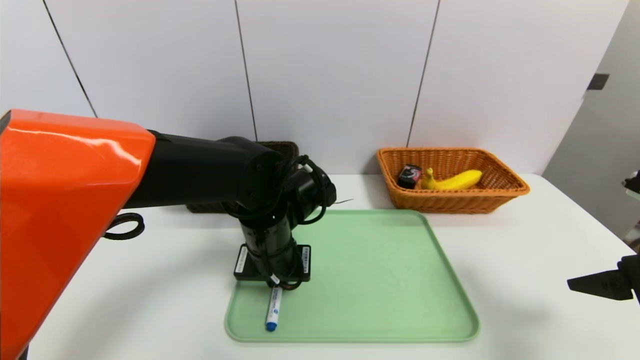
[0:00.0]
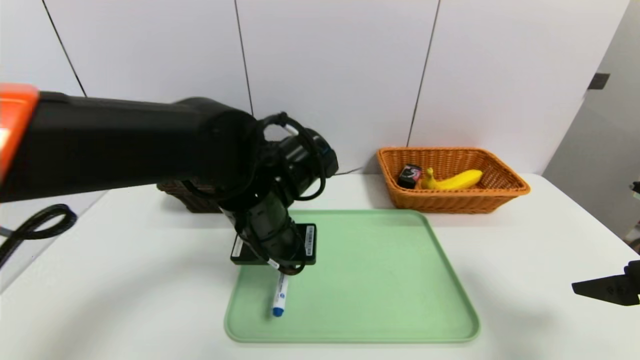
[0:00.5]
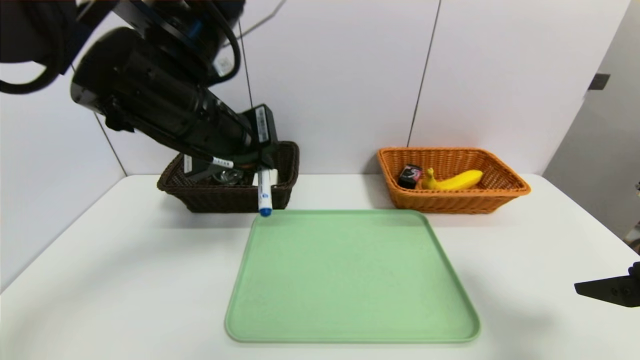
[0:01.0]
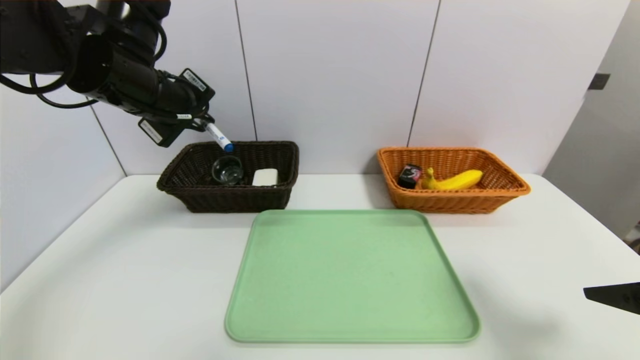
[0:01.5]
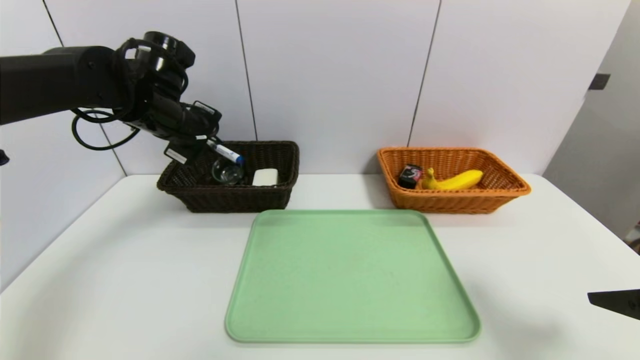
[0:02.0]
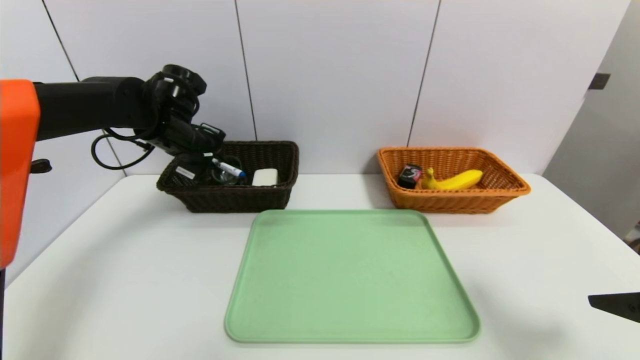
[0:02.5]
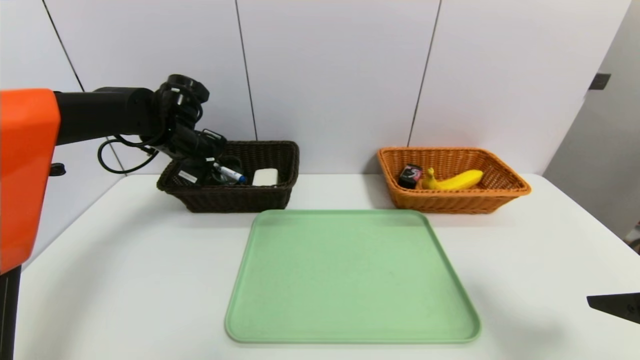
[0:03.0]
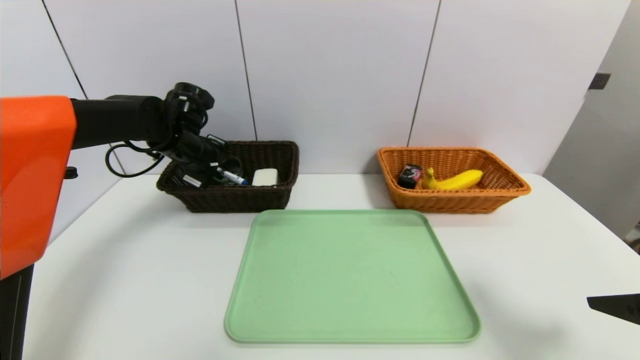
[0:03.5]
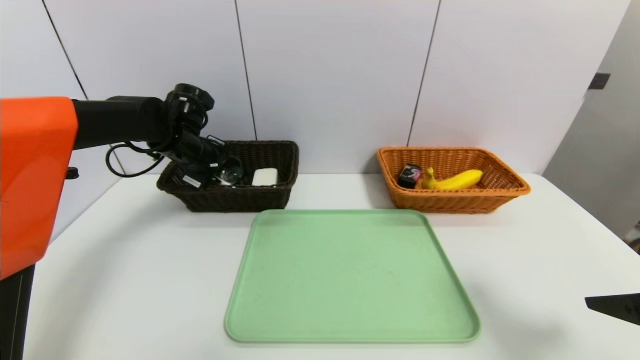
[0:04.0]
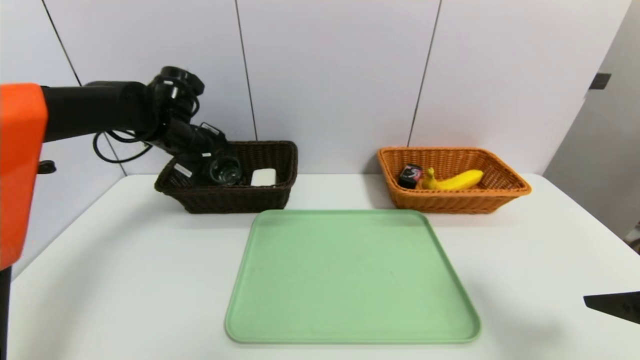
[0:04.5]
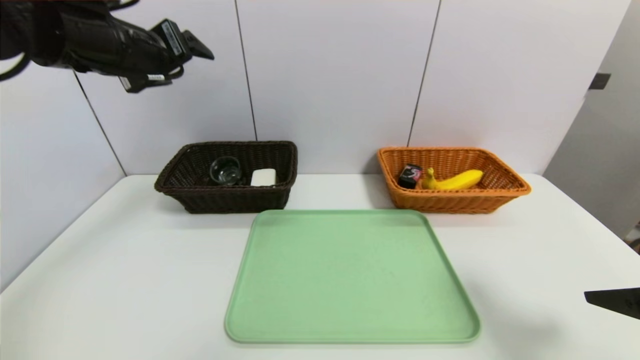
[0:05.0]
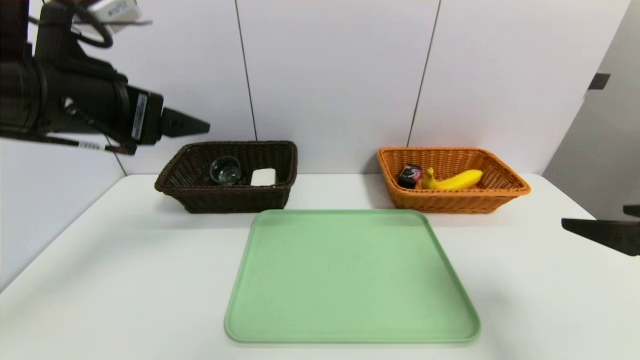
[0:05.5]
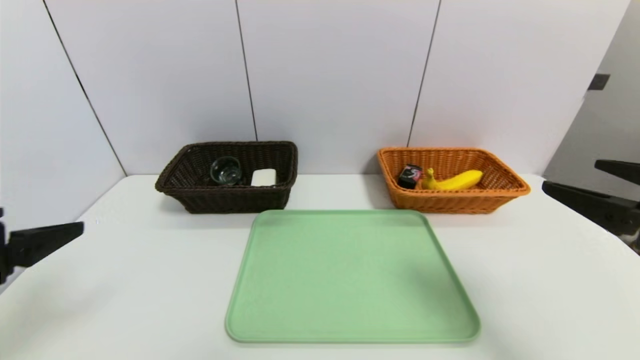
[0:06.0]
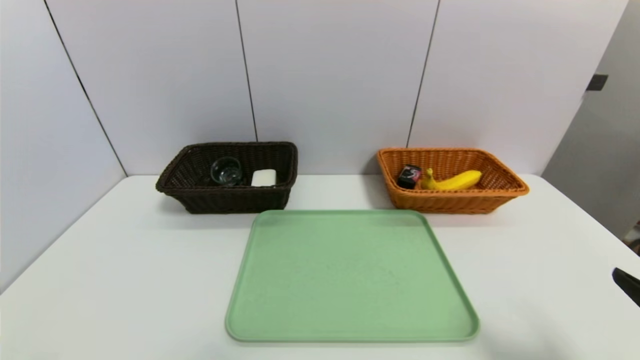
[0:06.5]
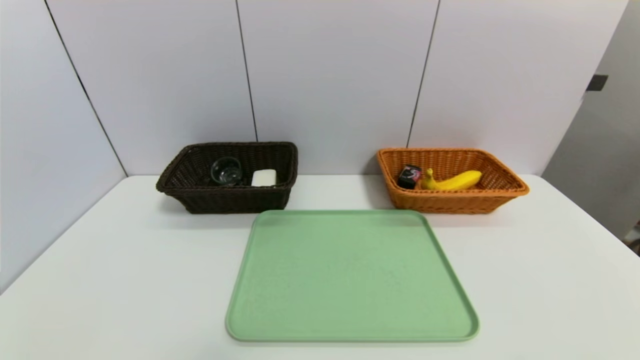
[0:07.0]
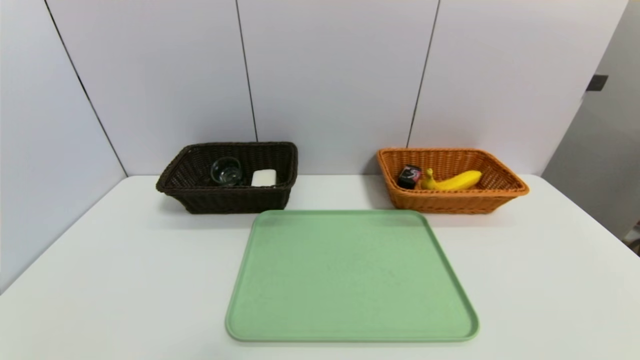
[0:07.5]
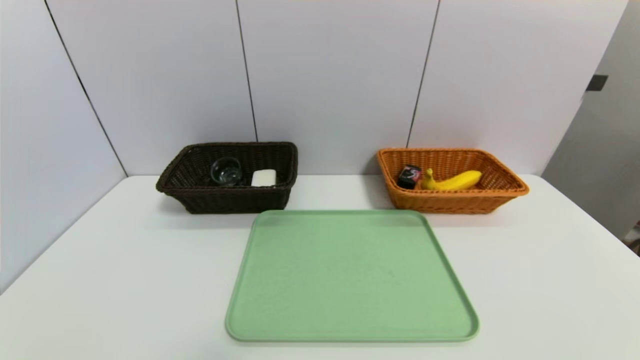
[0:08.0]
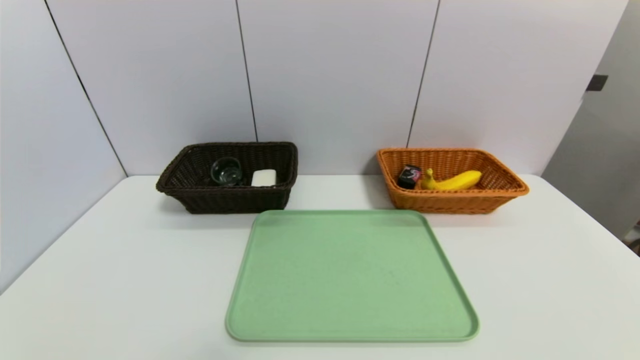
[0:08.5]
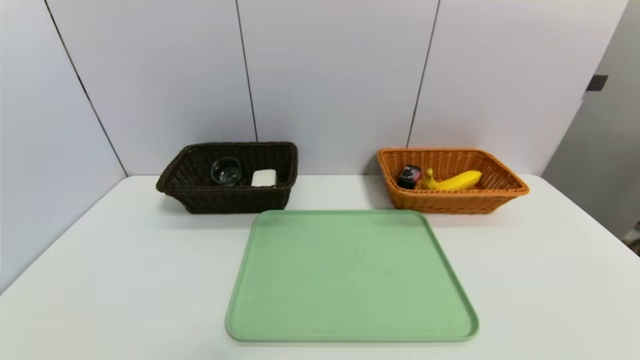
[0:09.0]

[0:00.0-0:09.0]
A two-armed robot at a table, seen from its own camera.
Task of the whole recording: place the food in the right basket with the right gripper, and place the non food items in the left basket with the left gripper.
Step, 0:00.0 to 0:04.0: Grasp the blue marker and put it in the left basket.
0:00.0 to 0:02.0: The left gripper is displaced to the left, upward and forward by roughly 25 cm.
0:02.0 to 0:04.5: The left gripper opens up.
0:04.5 to 0:07.0: The left gripper travels backward by roughly 50 cm. The right gripper shifts roughly 15 cm backward and downward.

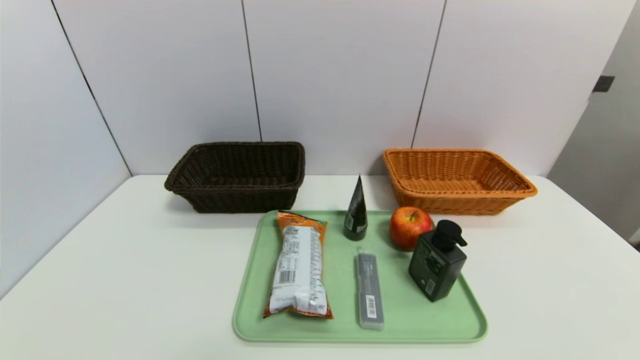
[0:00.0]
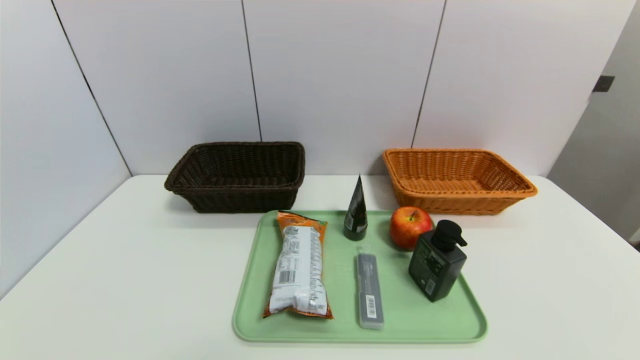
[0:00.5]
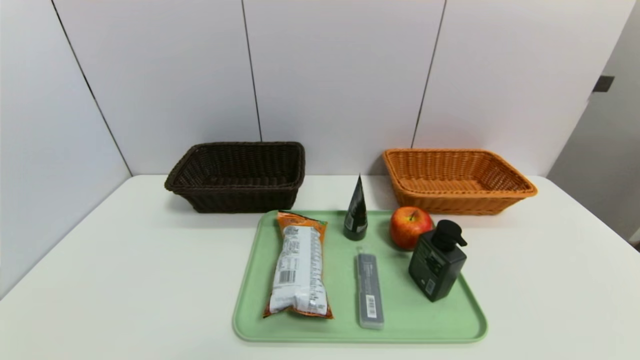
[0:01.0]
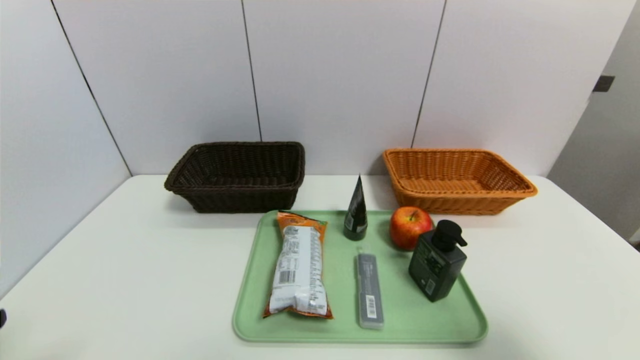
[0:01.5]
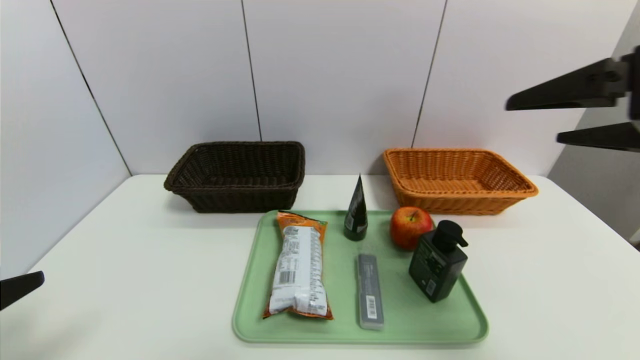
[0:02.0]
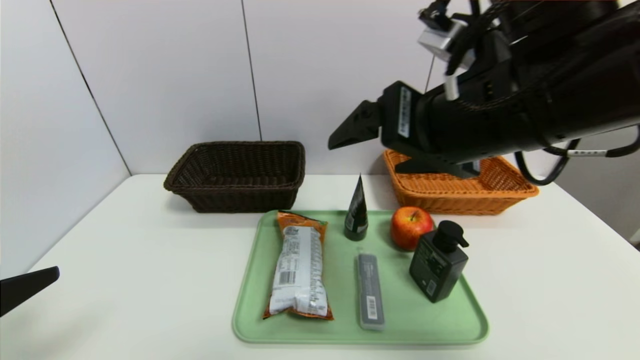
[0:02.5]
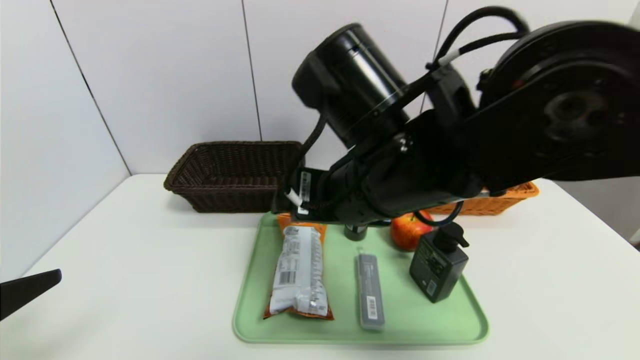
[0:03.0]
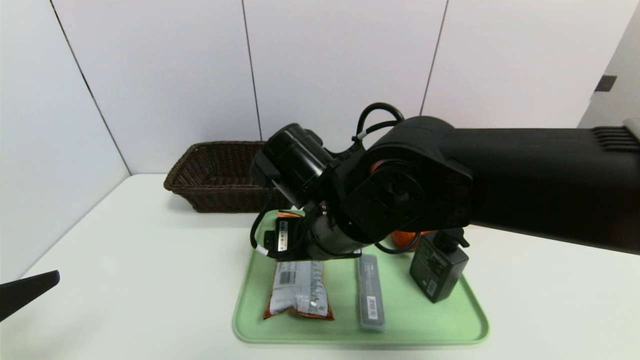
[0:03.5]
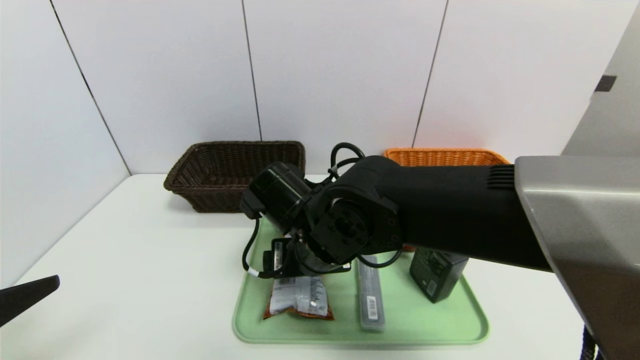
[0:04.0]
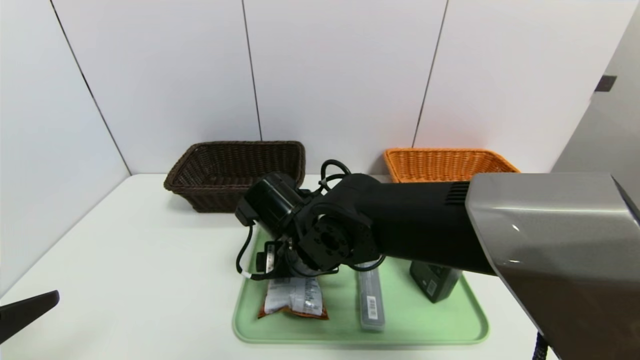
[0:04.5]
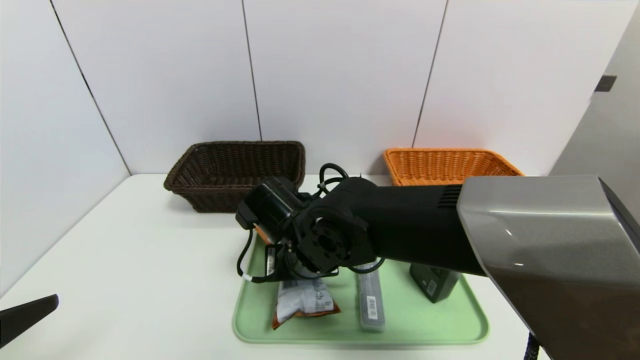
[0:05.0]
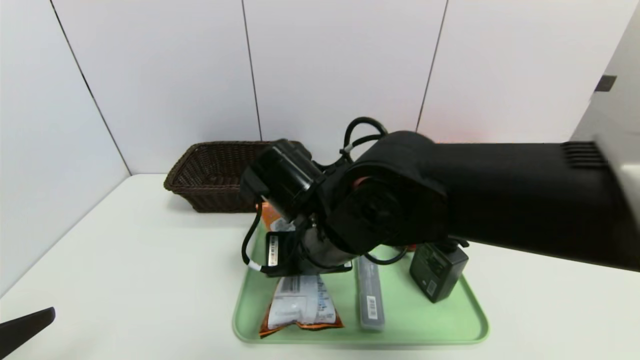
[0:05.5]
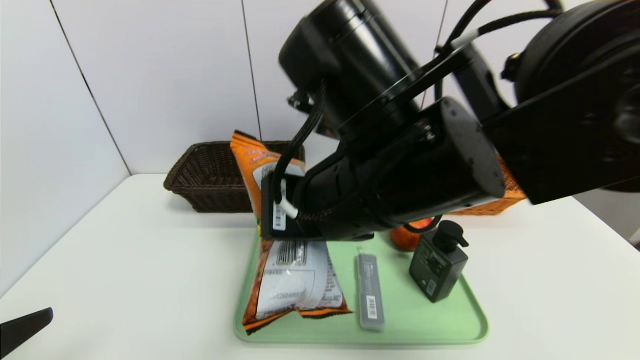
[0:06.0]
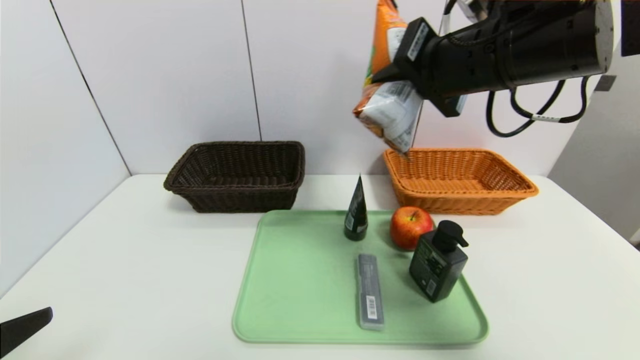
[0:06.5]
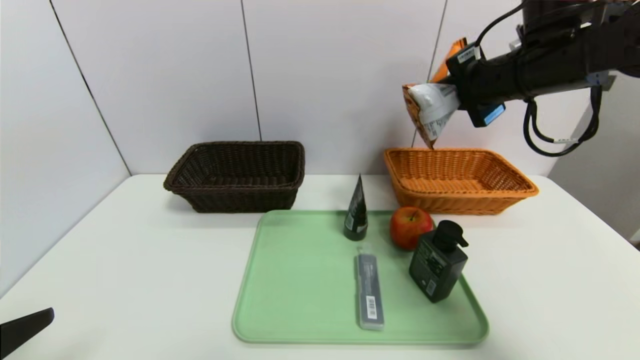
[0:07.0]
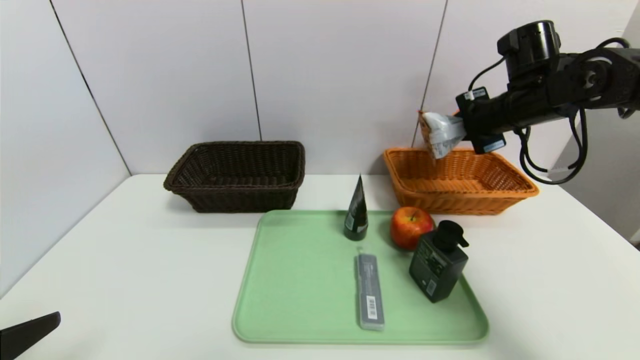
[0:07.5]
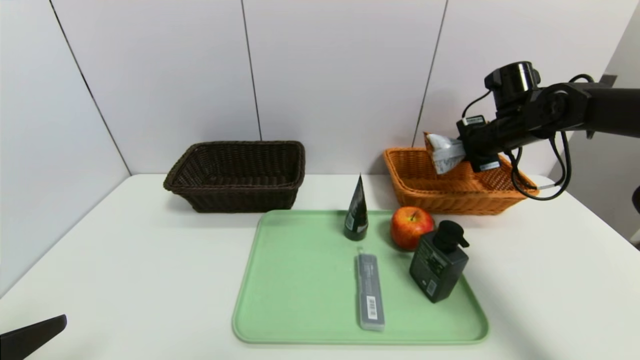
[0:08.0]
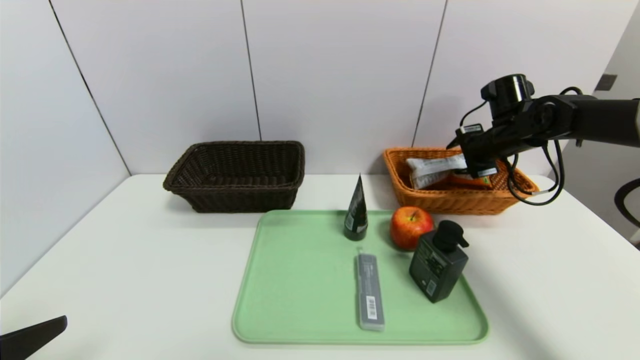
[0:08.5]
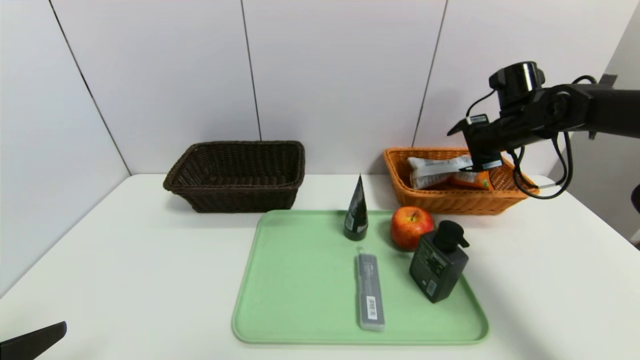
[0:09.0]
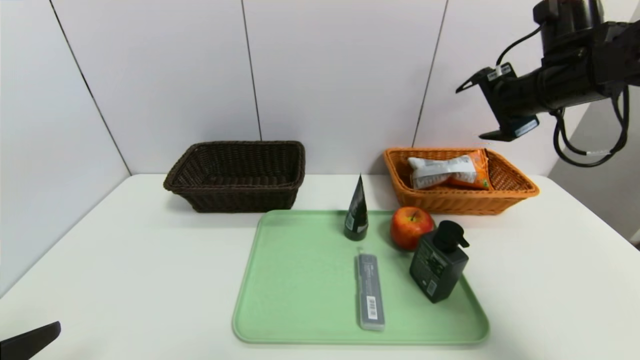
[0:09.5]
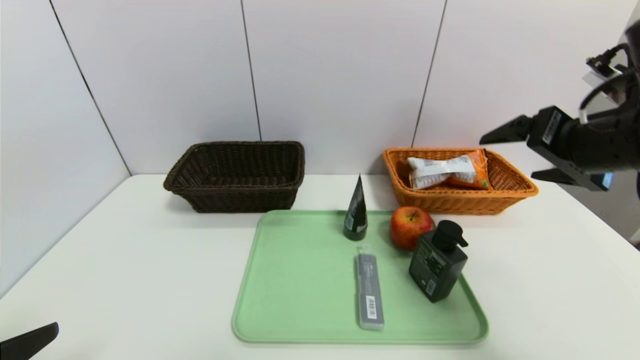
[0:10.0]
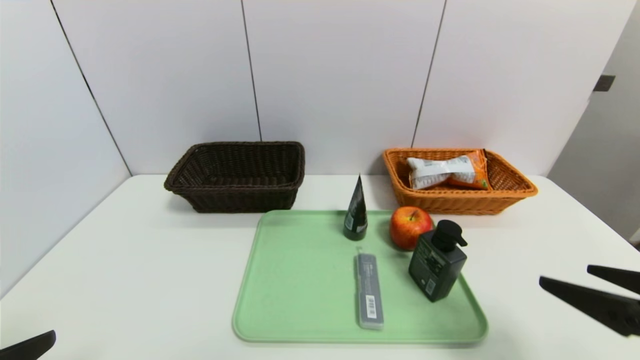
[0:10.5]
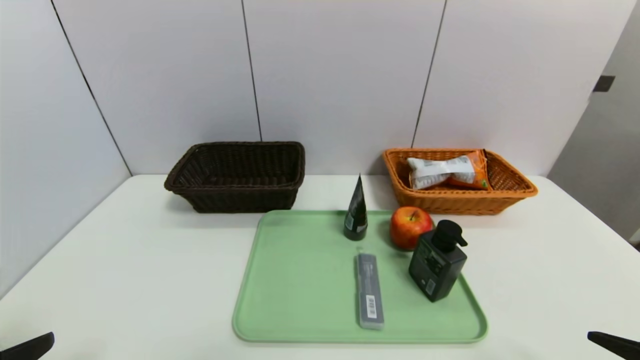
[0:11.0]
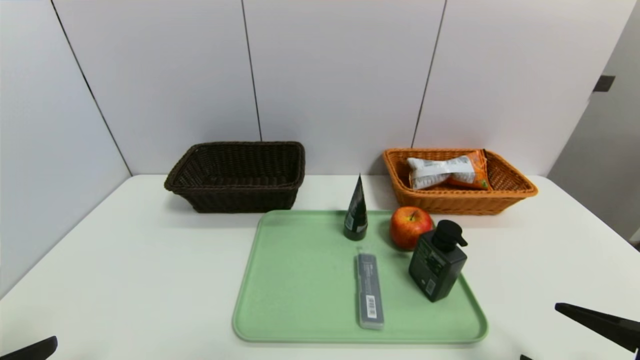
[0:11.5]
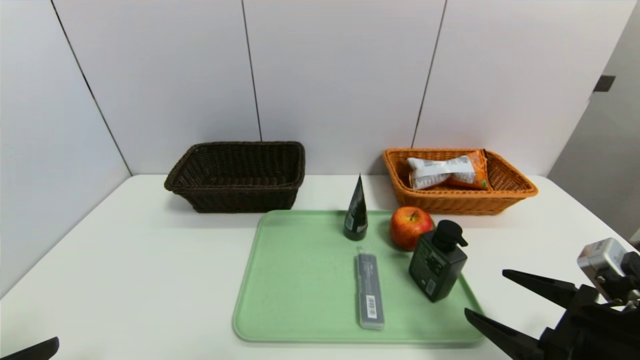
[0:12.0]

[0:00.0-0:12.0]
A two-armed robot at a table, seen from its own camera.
Task of the whole recording: place the food in the right basket with the right gripper, and place the non food items in the left basket with the left gripper.
Step, 0:00.0 to 0:09.0: Grasp the cookie and put it in the right basket.
0:00.0 to 0:02.0: The left gripper travels upward by about 20 cm, while the right gripper moves upward and forward, about 35 cm.
0:02.0 to 0:04.0: The right gripper moves to the left and downward, approximately 35 cm.
0:04.0 to 0:06.0: The right gripper heads upward, backward and to the right, covering some 15 cm, and closes up.
0:06.0 to 0:08.0: The right gripper travels to the right and forward by approximately 35 cm.
0:08.0 to 0:10.0: The right gripper heads backward, covering roughly 20 cm, and opens its fingers.
0:10.0 to 0:12.0: The right gripper shifts approximately 20 cm downward and backward.
